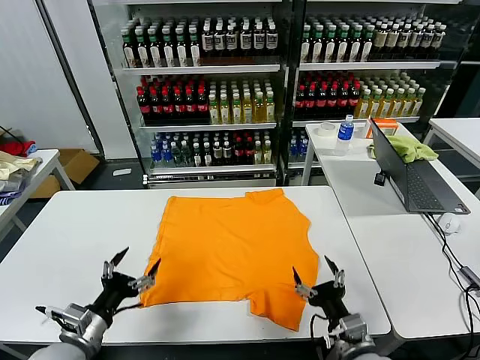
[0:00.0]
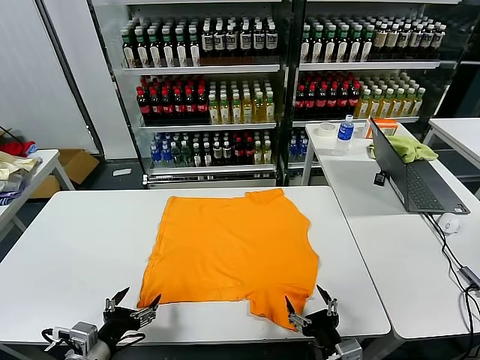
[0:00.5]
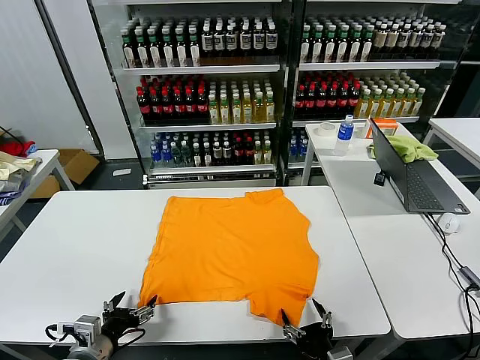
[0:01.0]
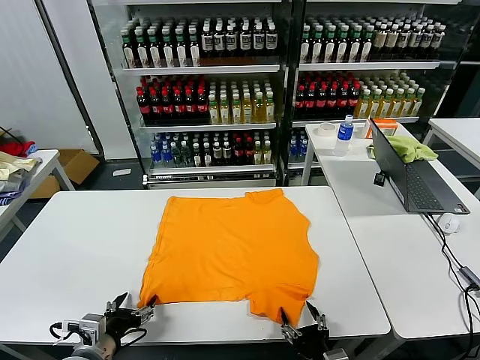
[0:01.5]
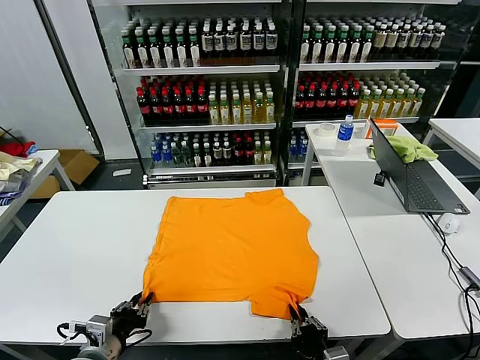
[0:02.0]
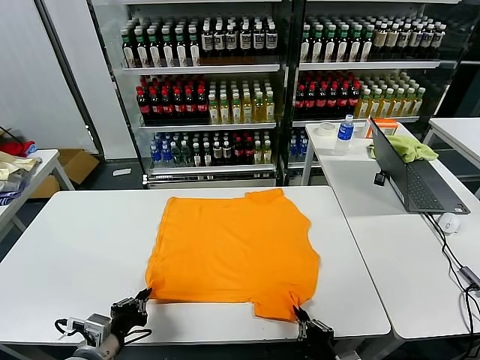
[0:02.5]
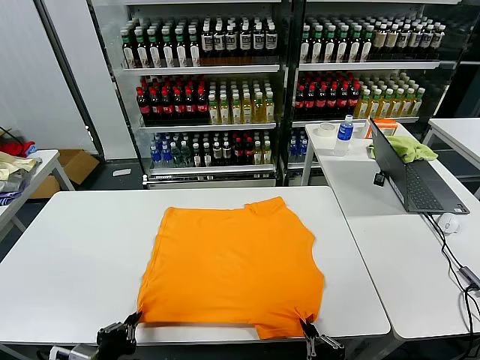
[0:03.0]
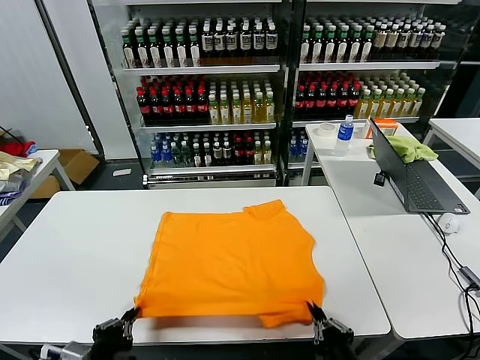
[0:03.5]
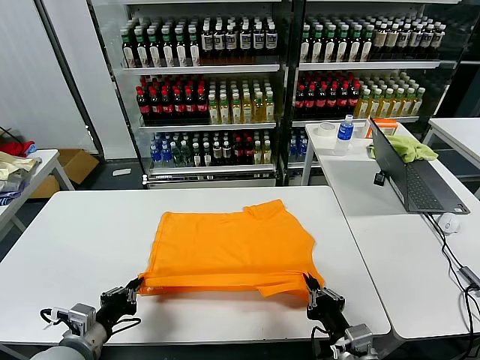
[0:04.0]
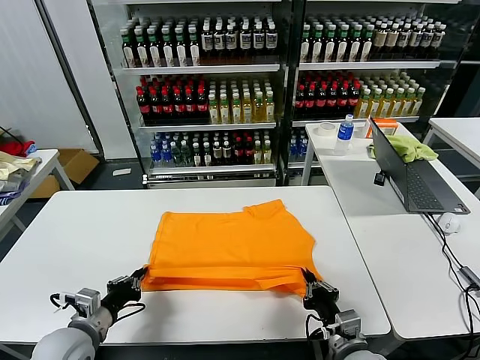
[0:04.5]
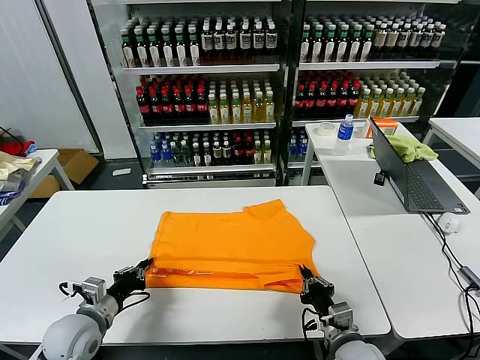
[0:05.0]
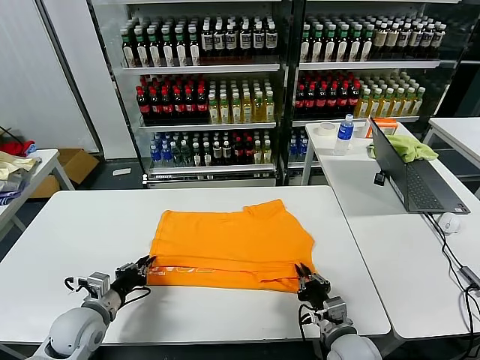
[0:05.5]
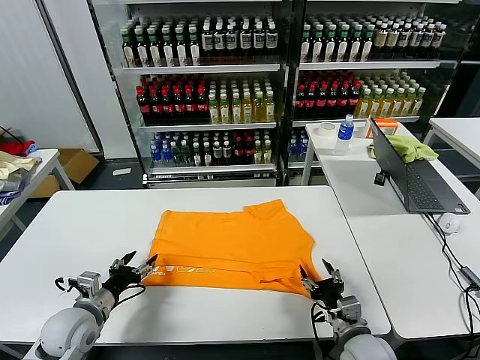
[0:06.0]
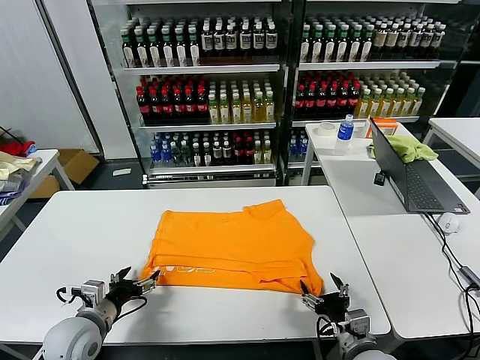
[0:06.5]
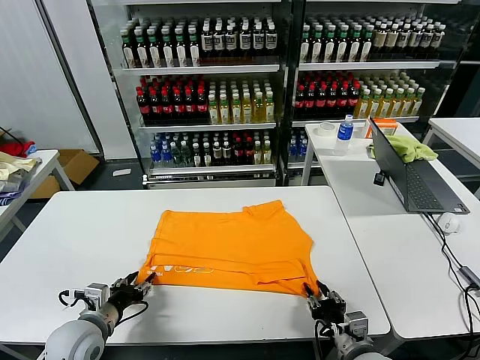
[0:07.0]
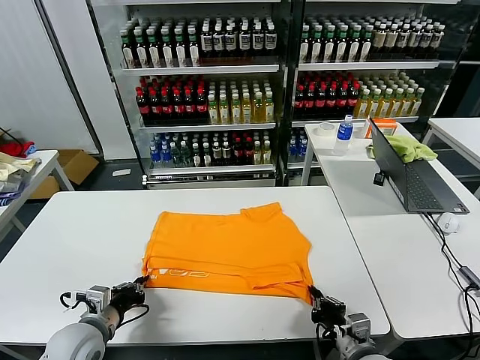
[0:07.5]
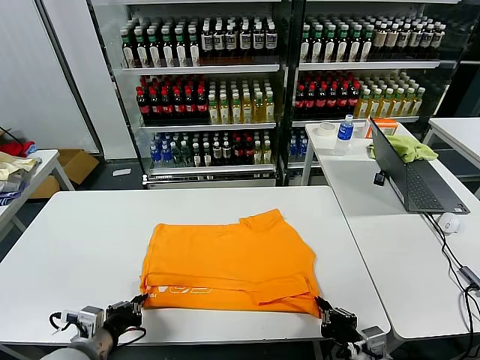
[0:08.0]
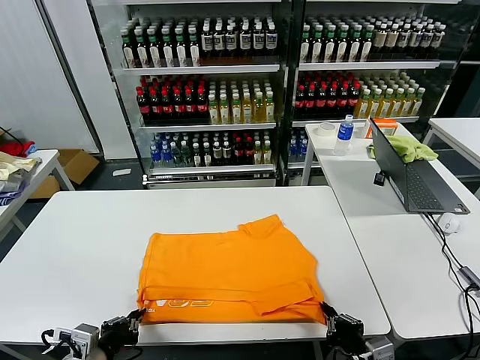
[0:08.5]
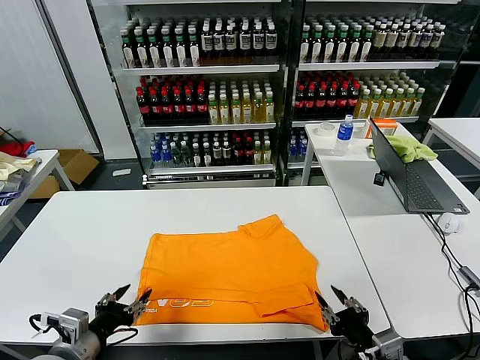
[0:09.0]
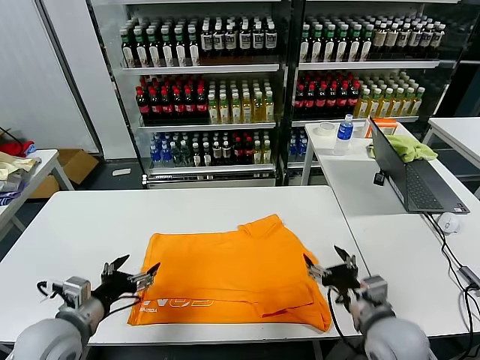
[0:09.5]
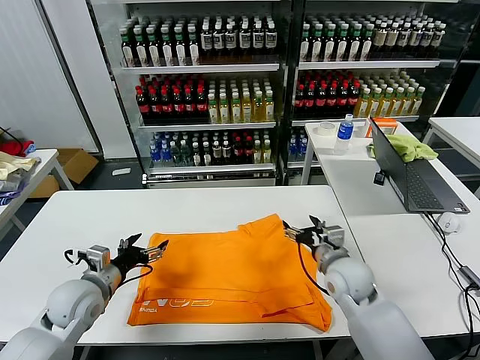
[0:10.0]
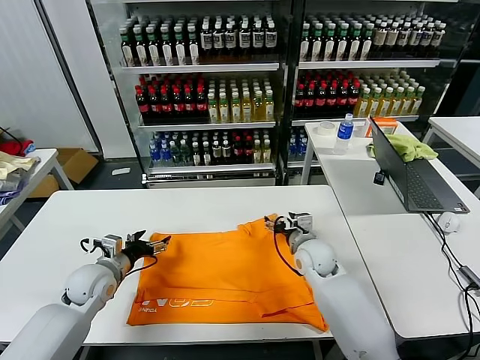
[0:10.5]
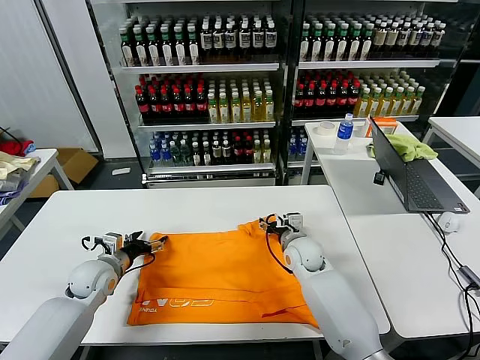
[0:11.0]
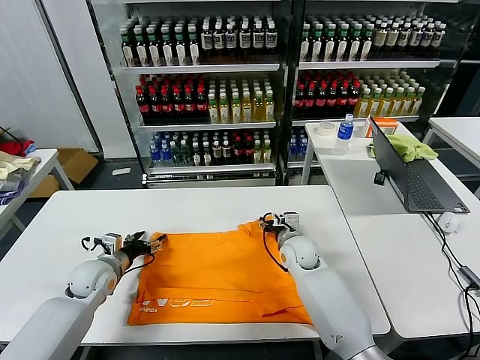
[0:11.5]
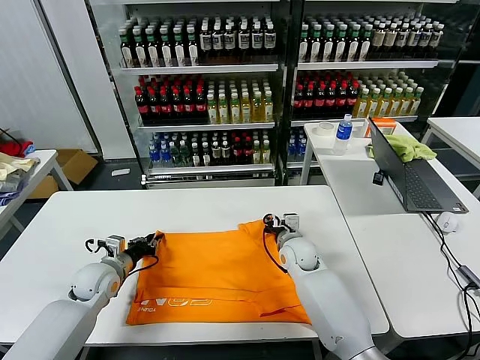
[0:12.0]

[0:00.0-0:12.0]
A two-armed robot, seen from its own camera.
Task of the whole recording: fold and organize the clothes.
Step, 0.0 to 2.0 s: use both grippers simultaneously to clamp the lower edge of the clothing fabric.
Step, 2.5 to 5.5 s: use both grippers to drag the lower edge of the fabric forward and fold it over the upper edge.
Step, 6.0 to 8.5 s: Drag the clothes downward with both gripper.
2.0 to 4.0 s: The right gripper moves roughly 5 cm.
4.0 to 6.0 s: The left gripper goes roughly 10 cm forward, and opens; the right gripper ends up approximately 5 cm from where it was, and opens its fingers.
6.0 to 8.0 s: Both grippers travel together backward, some 10 cm. The left gripper closes, while the right gripper closes.
8.0 to 10.0 s: The right gripper goes some 25 cm forward, and opens its fingers; the left gripper is displaced forward by about 15 cm, and opens.
10.0 to 12.0 s: The left gripper goes approximately 10 cm forward and downward, and closes; the right gripper shifts some 10 cm forward, to the left and downward, and closes.

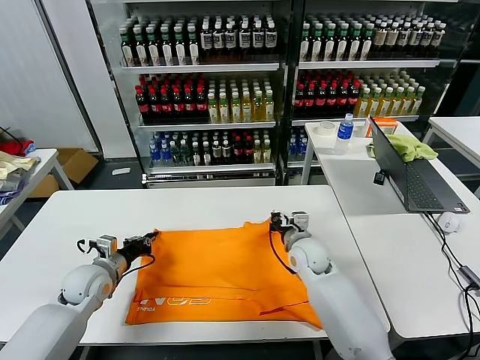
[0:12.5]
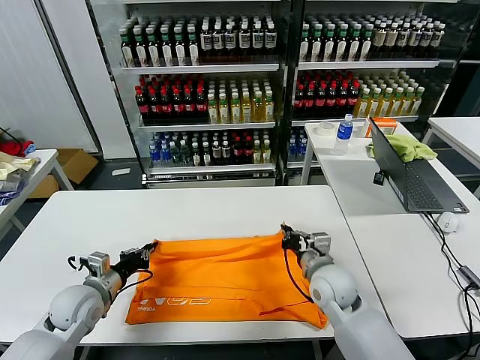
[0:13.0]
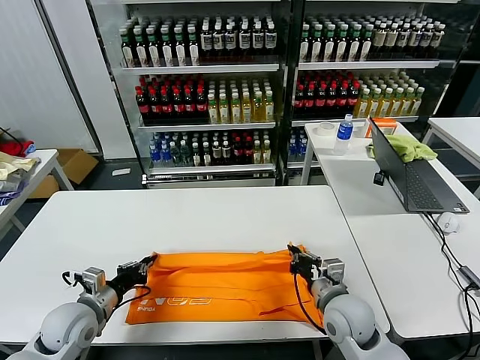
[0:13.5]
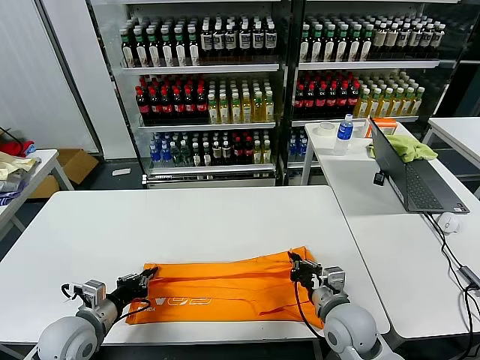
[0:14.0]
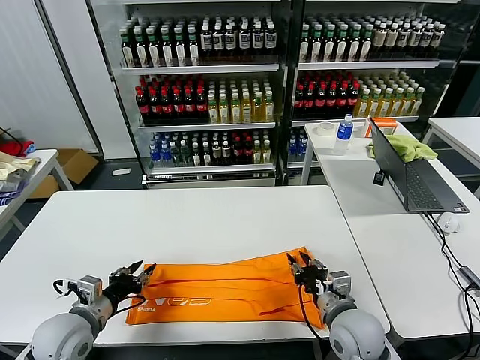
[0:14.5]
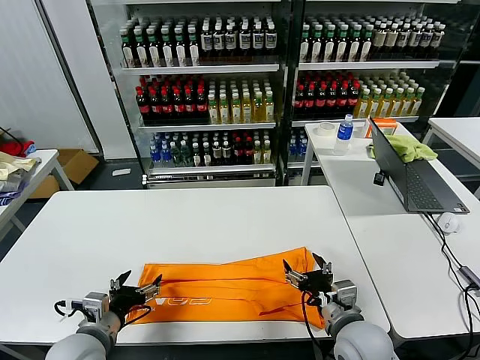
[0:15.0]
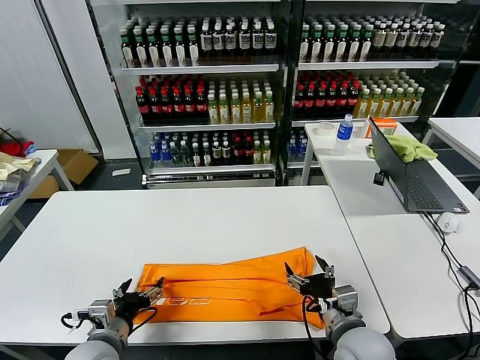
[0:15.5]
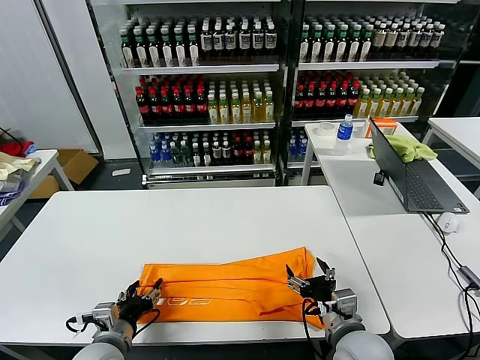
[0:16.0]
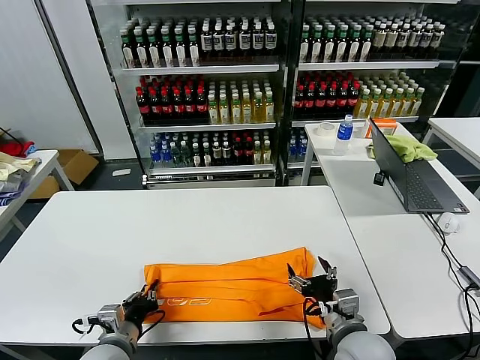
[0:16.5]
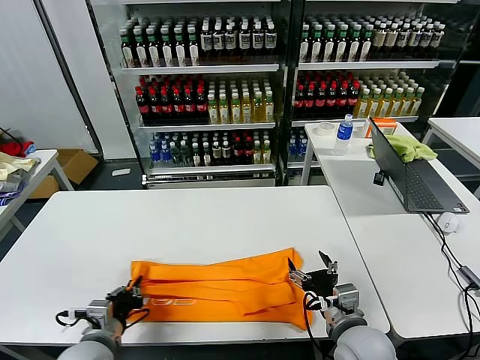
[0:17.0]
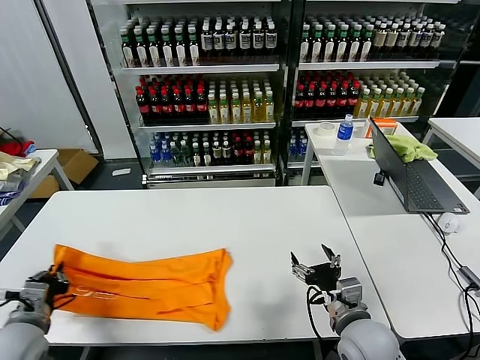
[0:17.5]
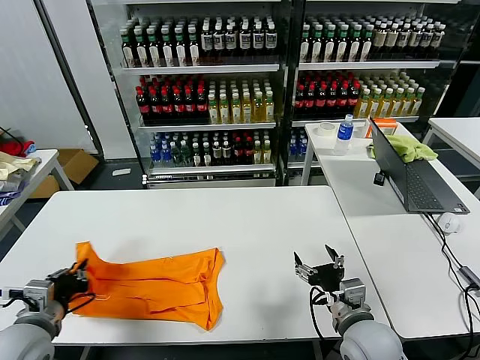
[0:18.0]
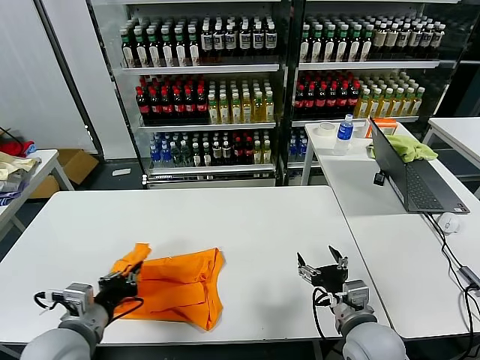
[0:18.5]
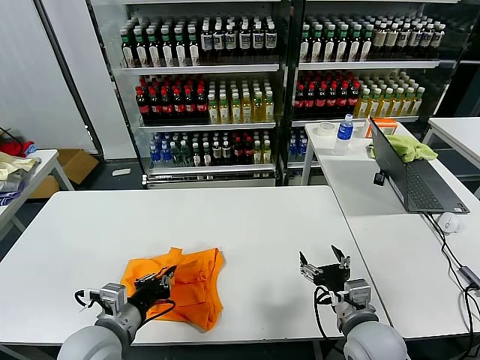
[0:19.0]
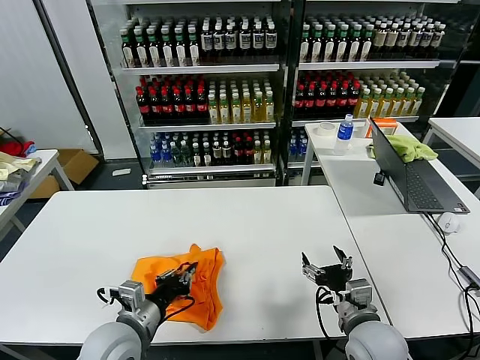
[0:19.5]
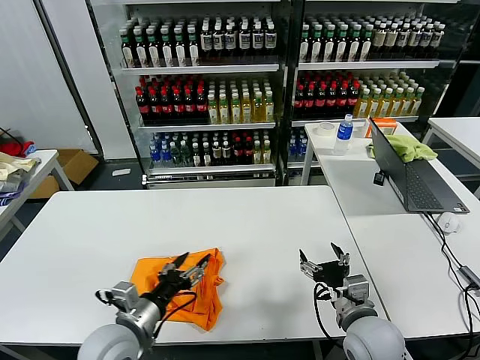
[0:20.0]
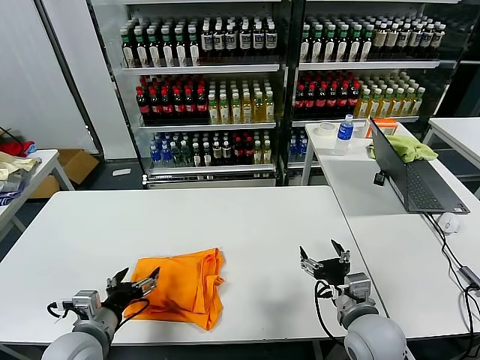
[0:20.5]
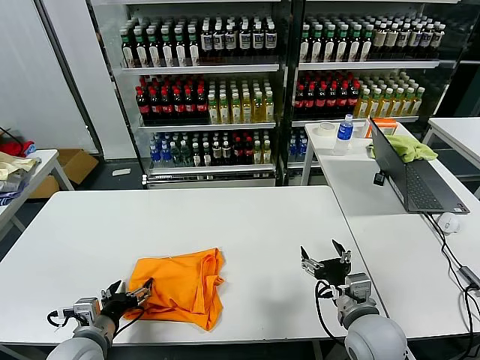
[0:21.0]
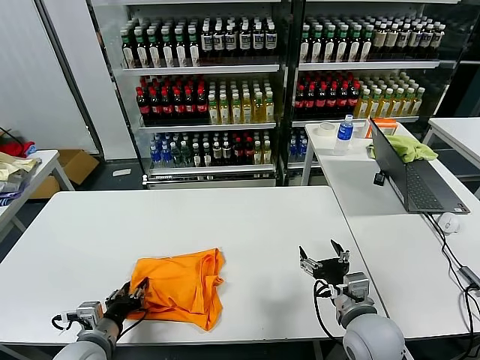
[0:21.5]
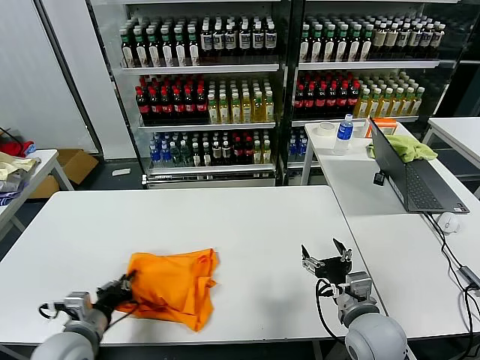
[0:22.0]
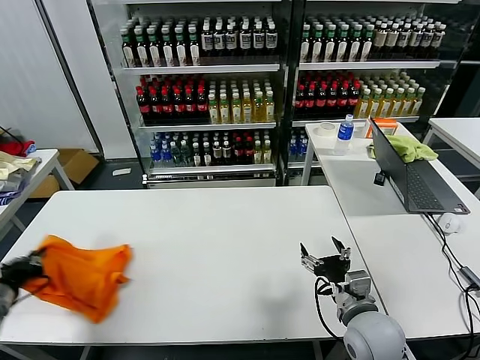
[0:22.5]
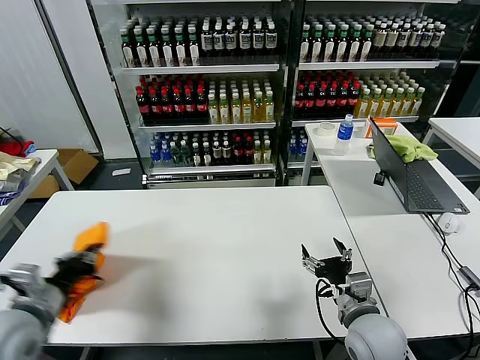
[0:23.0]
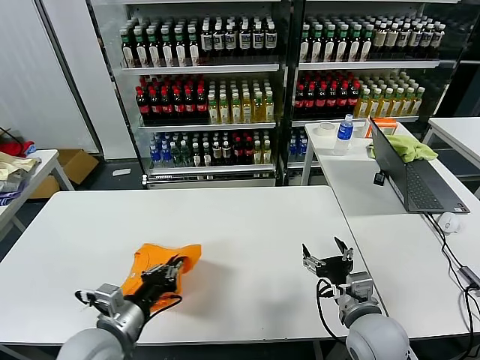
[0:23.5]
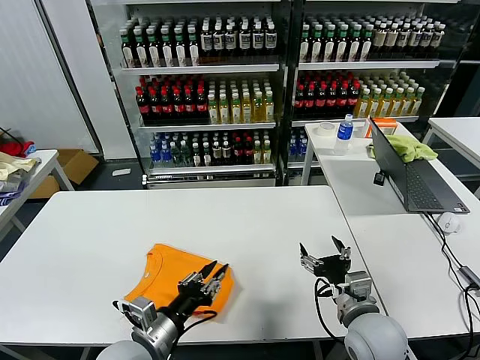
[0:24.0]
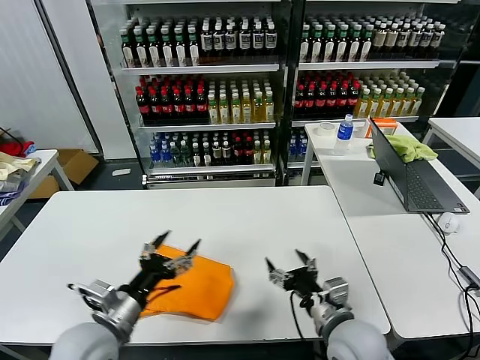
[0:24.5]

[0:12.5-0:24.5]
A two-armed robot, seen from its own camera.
Task of the whole recording: fold and organize the clothes.
Step, 12.5 to 14.5 s: use both grippers to drag the upper edge of the fabric backward and fold it over the lower edge.
Step, 15.0 to 16.5 s: use the left gripper to clamp the left edge of the fabric.
Step, 17.0 to 19.5 s: use the left gripper to drag the left edge of the fabric to the left and folds it over the right edge.
Step, 20.0 to 24.0 s: Flip the folded clothes over with left gripper.
12.5 to 14.5 s: Both grippers travel together backward, about 15 cm. The left gripper opens up, while the right gripper opens up.
14.5 to 16.5 s: The right gripper opens. The left gripper shifts about 10 cm to the right, and opens, then closes again.
16.5 to 18.5 s: The left gripper travels upward by approximately 10 cm, and reaches some 15 cm to the left, then returns.
18.5 to 20.5 s: The left gripper heads downward, covering roughly 5 cm, travels to the right and back again, approximately 10 cm each way, and opens.
20.5 to 22.5 s: The left gripper goes some 15 cm to the left, and closes up.
22.5 to 24.5 s: The left gripper moves to the right, approximately 20 cm, and opens up.

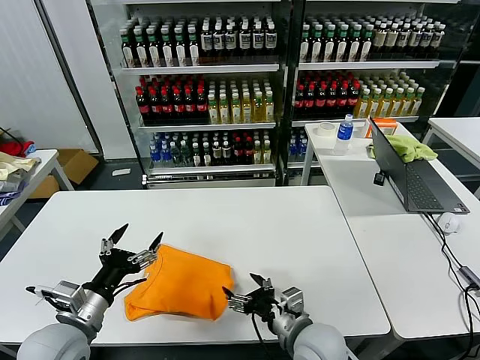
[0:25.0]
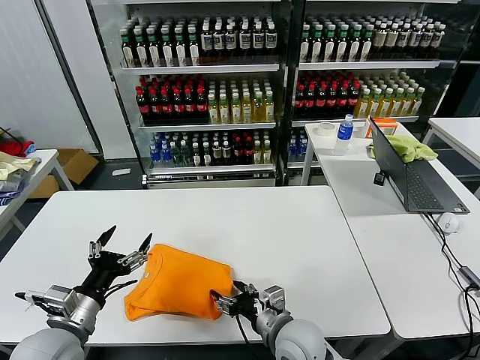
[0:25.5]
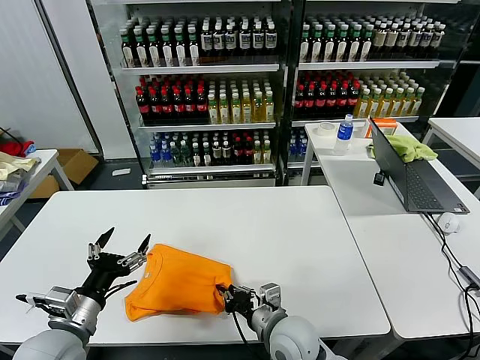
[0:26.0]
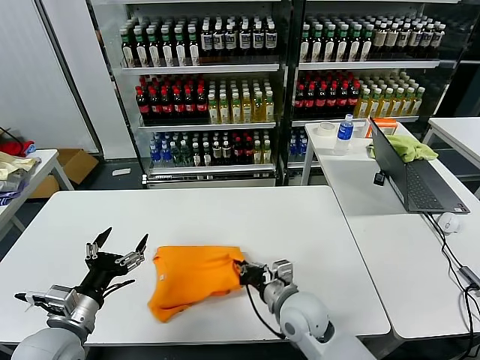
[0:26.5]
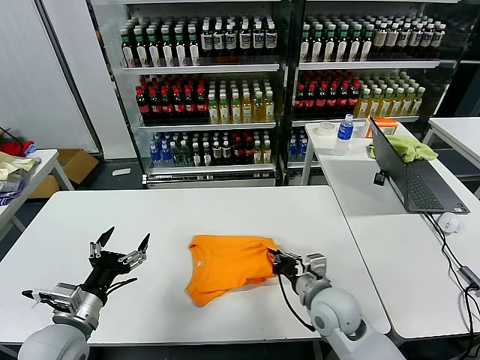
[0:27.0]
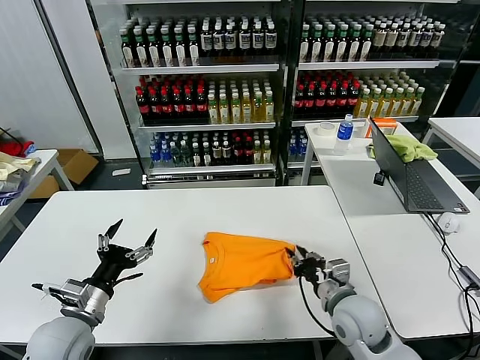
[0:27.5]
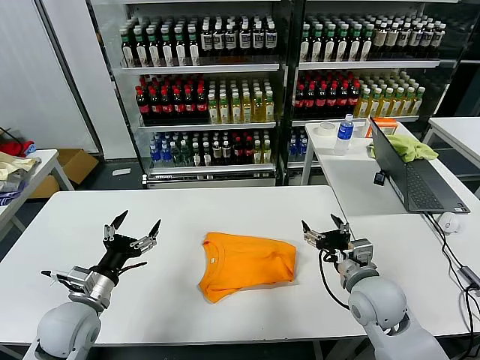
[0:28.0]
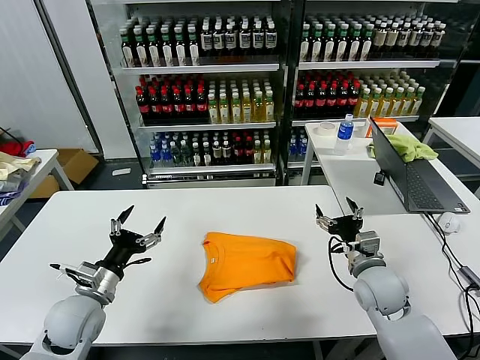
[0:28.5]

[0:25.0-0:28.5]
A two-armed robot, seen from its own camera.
Task of the whole recording: fold and organize the clothes.
Step, 25.0 to 27.5 s: Drag the clothes to the center of the table.
25.0 to 27.0 s: The right gripper travels forward by roughly 5 cm, and closes.
27.0 to 28.5 s: The left gripper heads forward, covering approximately 5 cm. Meanwhile the right gripper shifts approximately 10 cm to the right, and opens up.
